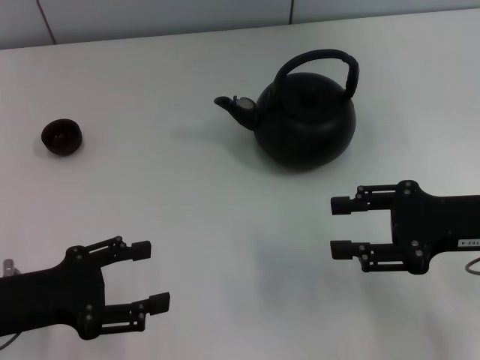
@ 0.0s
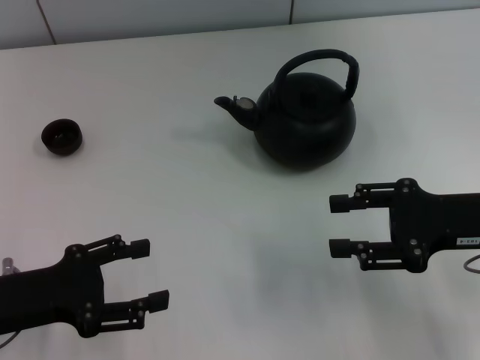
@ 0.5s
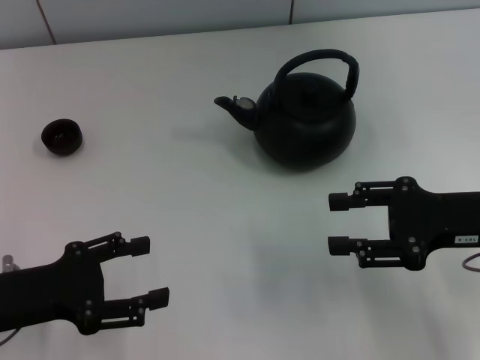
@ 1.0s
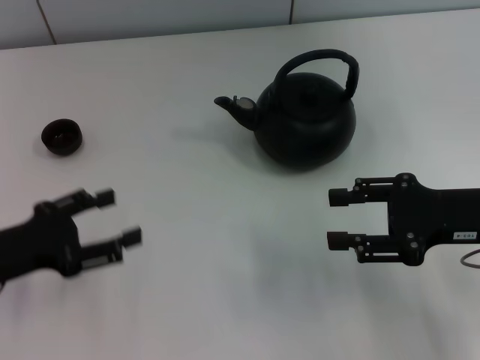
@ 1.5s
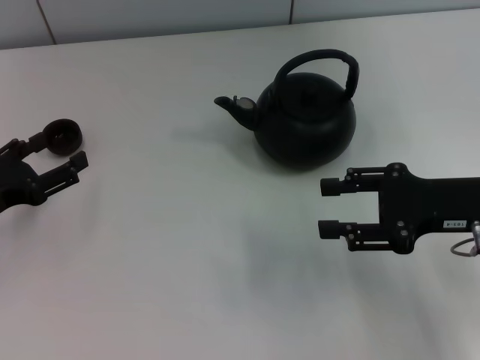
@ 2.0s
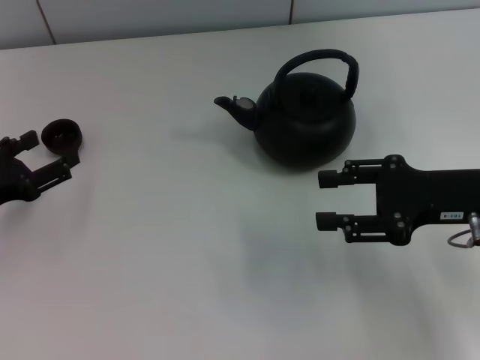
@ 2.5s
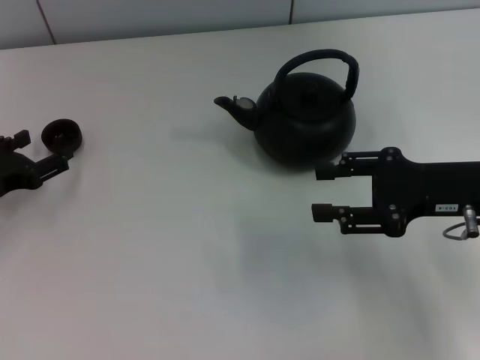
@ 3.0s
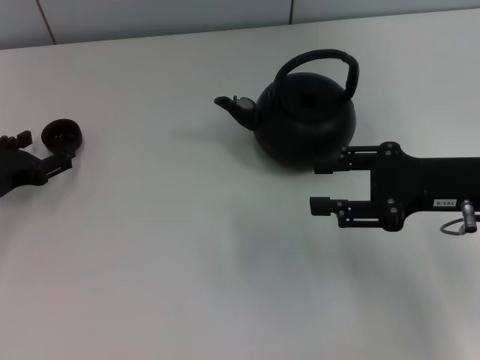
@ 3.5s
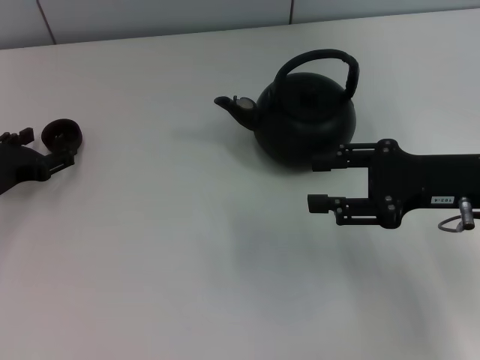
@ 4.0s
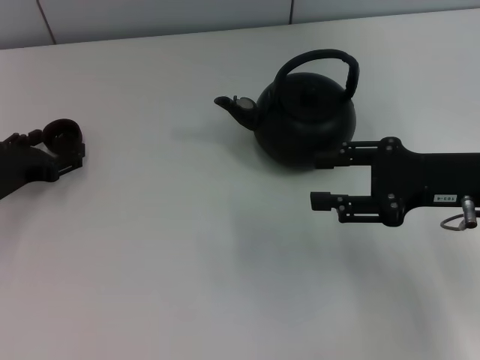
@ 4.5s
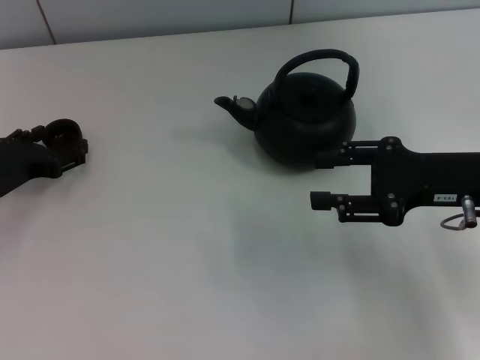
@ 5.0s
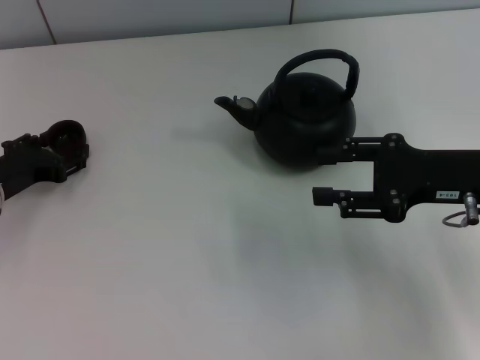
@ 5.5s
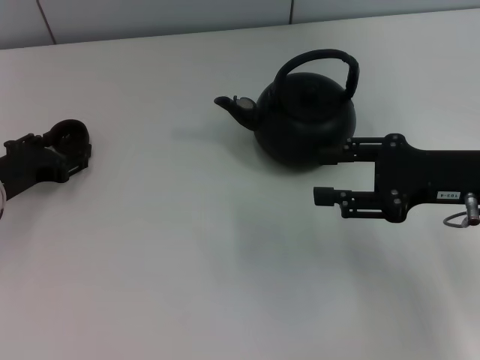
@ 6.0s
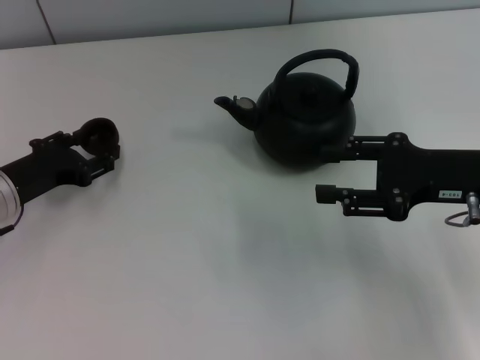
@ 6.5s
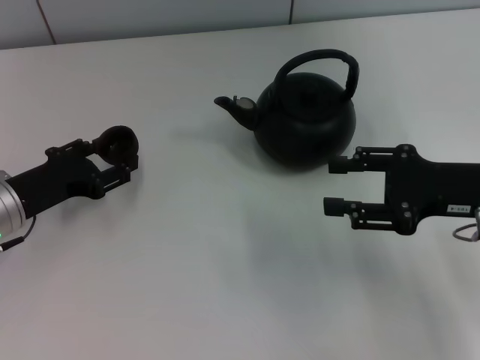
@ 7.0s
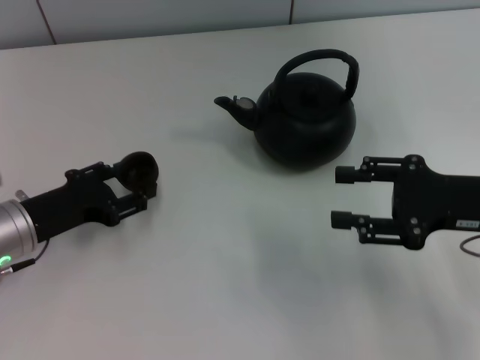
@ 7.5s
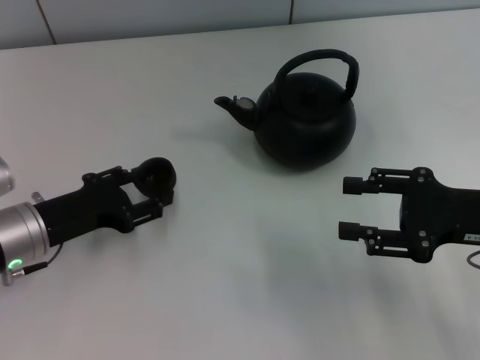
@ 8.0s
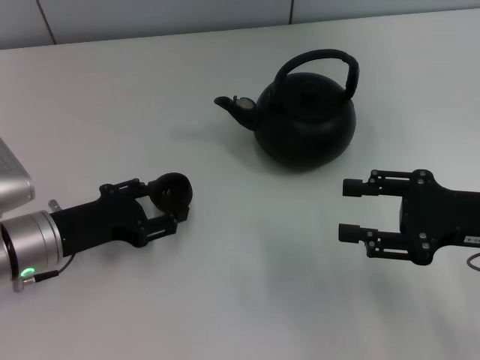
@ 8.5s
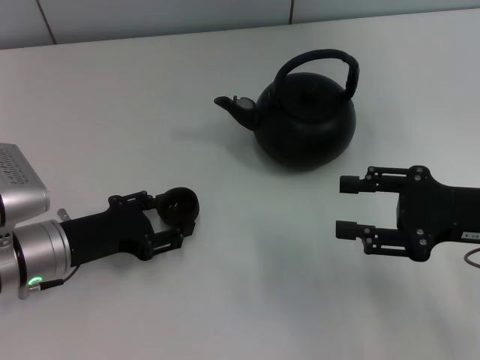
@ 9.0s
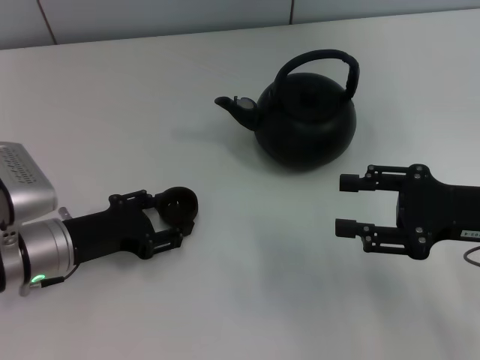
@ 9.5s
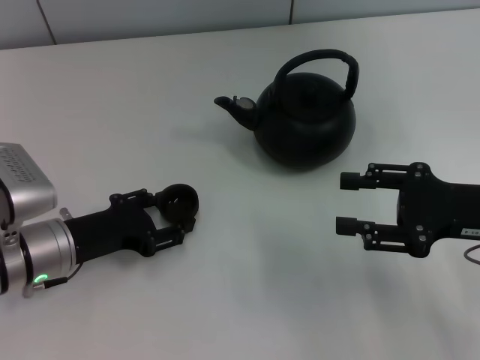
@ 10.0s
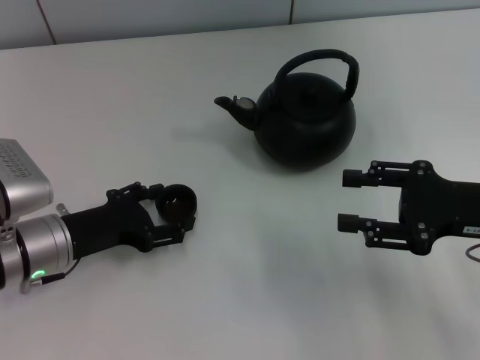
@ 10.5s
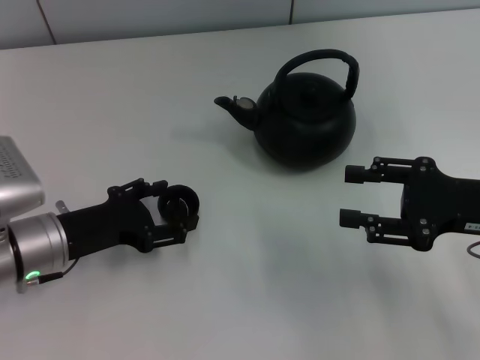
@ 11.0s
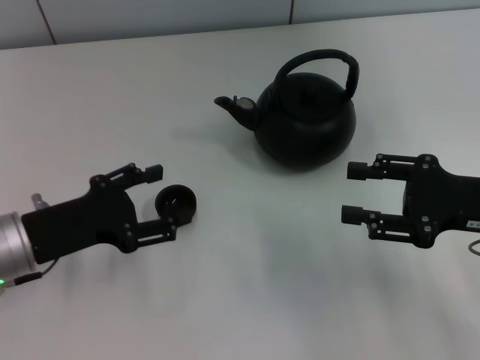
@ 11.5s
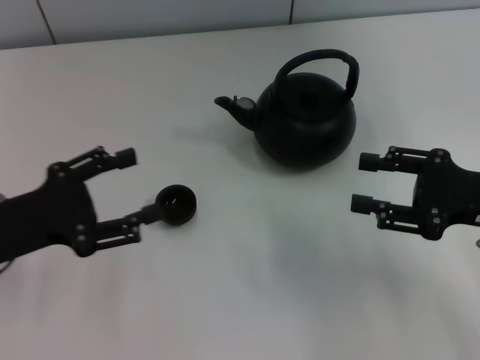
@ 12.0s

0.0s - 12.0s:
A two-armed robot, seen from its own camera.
Task of the whole recording: Grasp the handle of the teapot with one hand and pour tea into the teacup.
Step, 0.0s - 6.5s: Pick up the teacup with the left gripper.
Step, 7.0s - 11.5s: Place the teacup in the center of view with the left gripper.
0.0s - 2.0s: The left gripper goes some 5 cm forward.
2.0s - 4.0s: The left gripper travels forward by roughly 5 cm.
4.0s - 6.0s: The left gripper closes up.
6.0s - 8.0s: The left gripper ends up about 5 cm from where it was.
8.0s - 10.0s: The grippers stay close to where they were, moving slightly.
10.0s - 12.0s: The left gripper heads upward and to the left, covering approximately 10 cm, and opens.

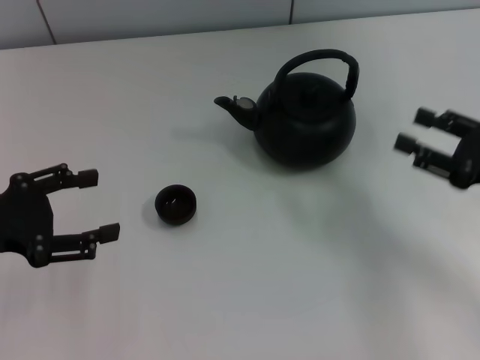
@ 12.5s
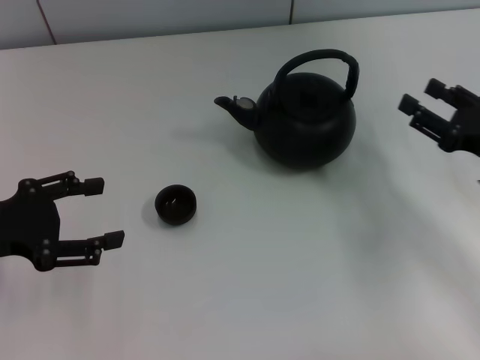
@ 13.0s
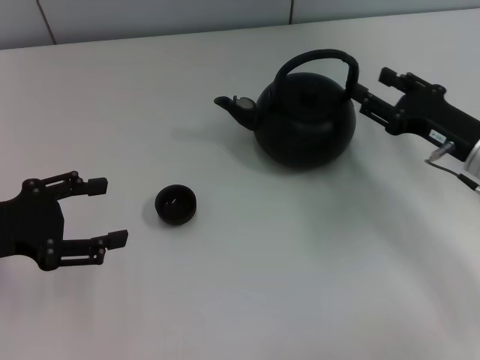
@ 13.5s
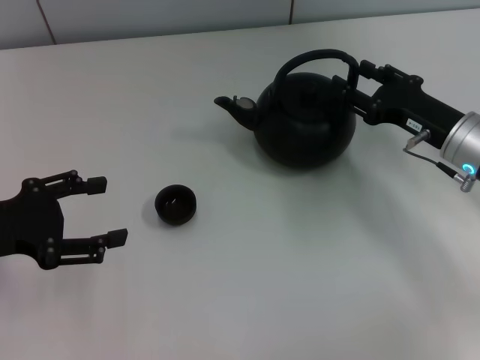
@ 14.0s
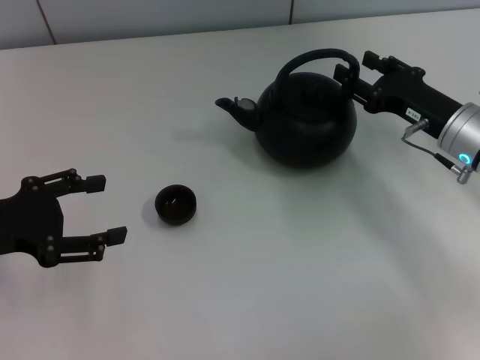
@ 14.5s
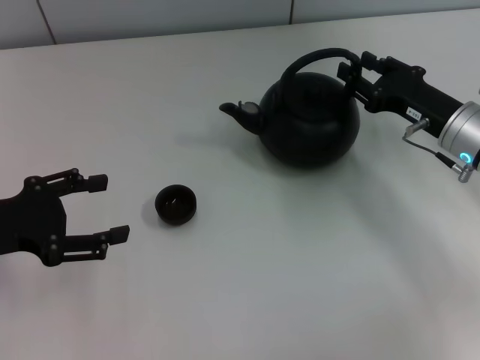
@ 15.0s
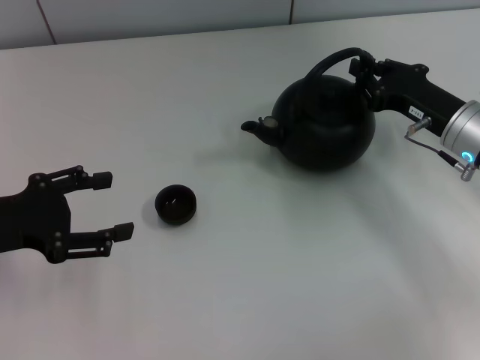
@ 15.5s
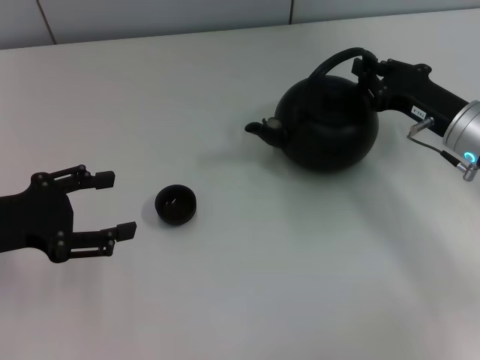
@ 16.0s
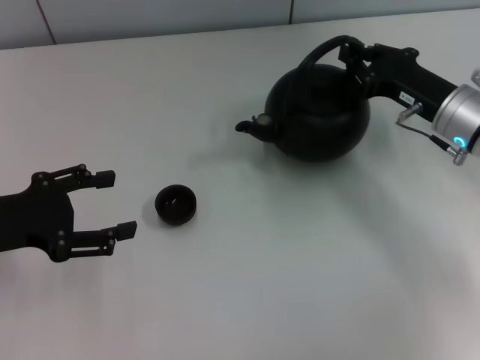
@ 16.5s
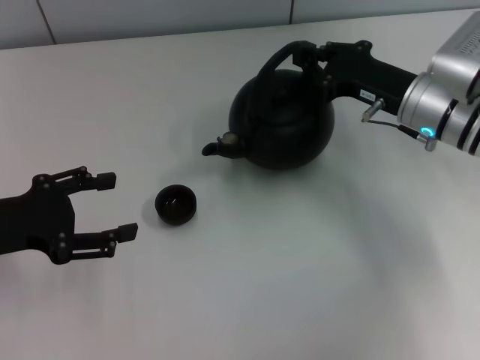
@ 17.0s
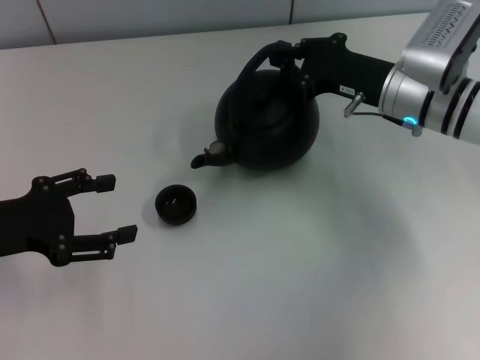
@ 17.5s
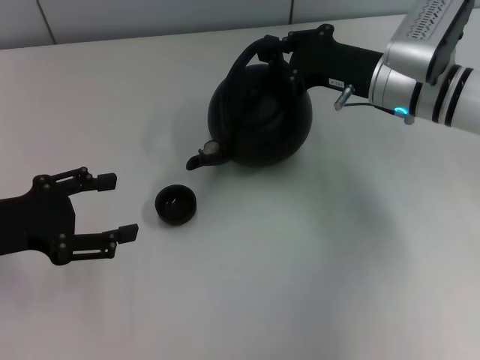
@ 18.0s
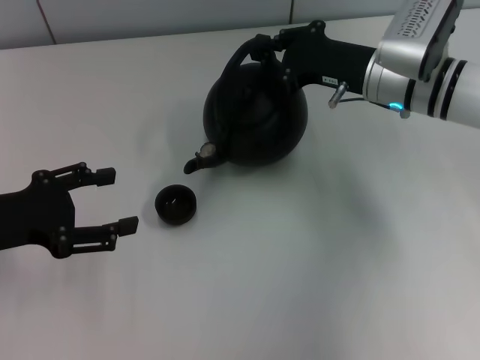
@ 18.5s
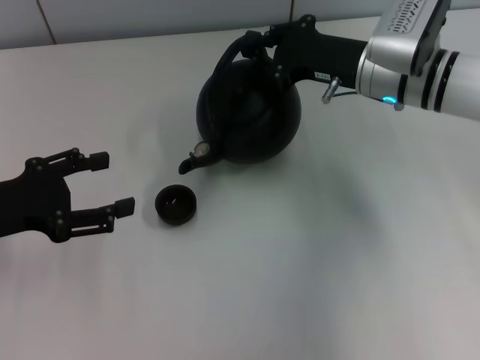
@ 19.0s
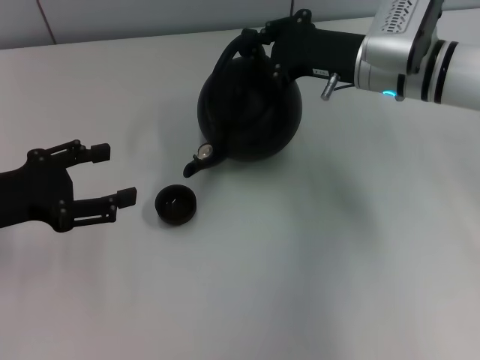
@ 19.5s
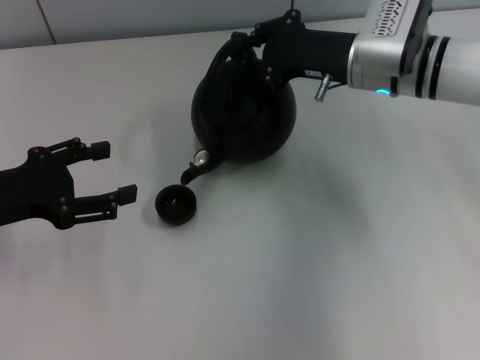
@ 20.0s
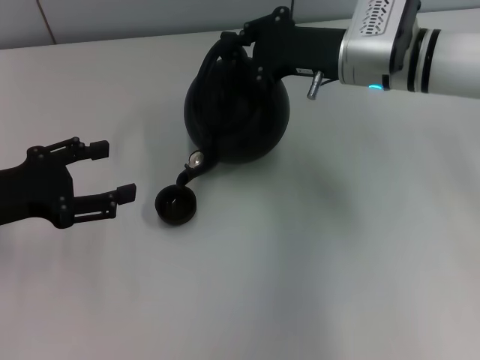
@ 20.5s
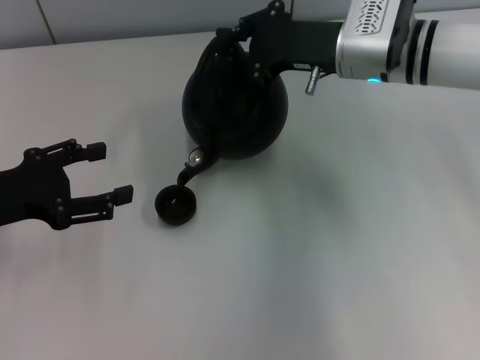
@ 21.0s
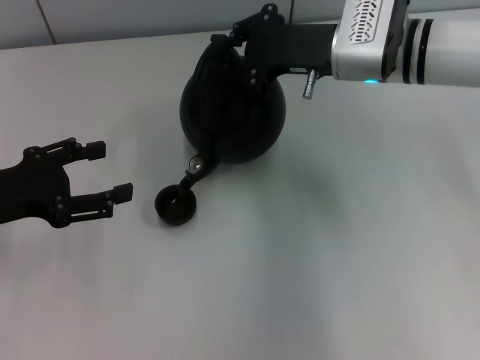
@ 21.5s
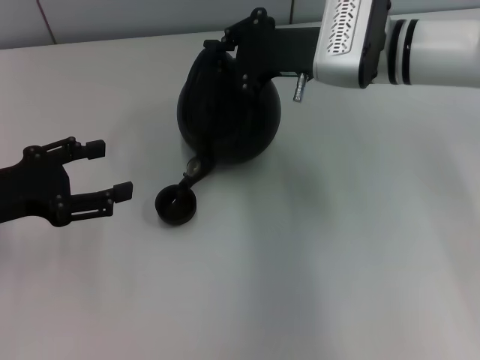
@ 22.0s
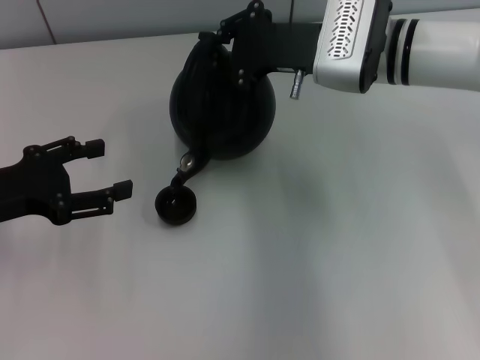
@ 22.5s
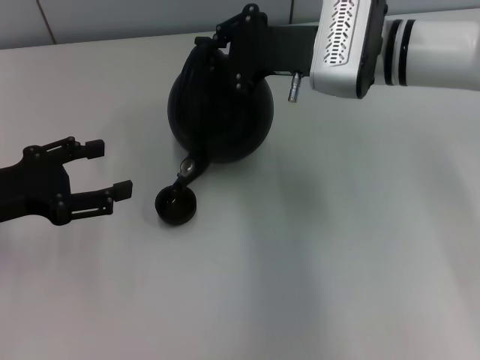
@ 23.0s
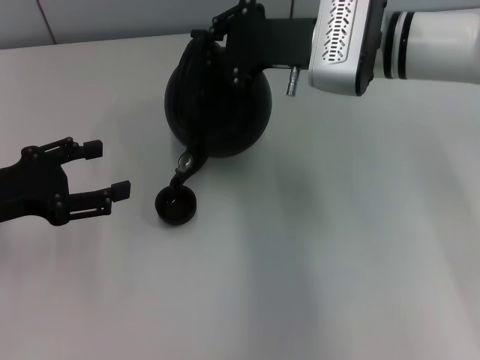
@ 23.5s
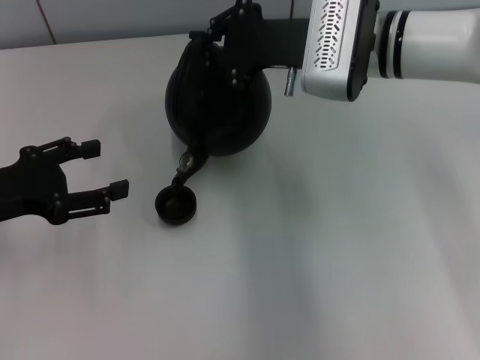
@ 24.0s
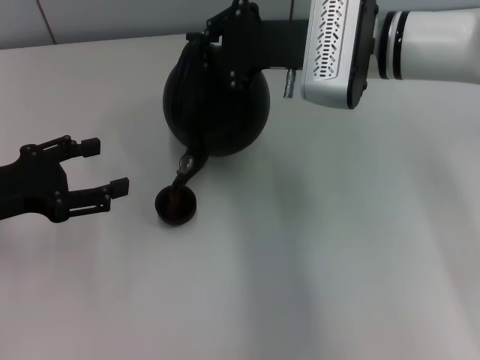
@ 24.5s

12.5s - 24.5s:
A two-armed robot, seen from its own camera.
Task of the whole recording: Grasp the handle of the teapot with one hand and pour tea into the teacup.
Step, 12.5s - 16.5s: Pick up the teapot with the right gripper.
12.5s - 14.5s: The right gripper travels forward and to the left by approximately 10 cm.
14.5s - 16.5s: The right gripper closes.
16.5s - 18.5s: The right gripper heads to the left, covering roughly 5 cm.
18.5s - 20.5s: The grippers stay close to where they were, moving slightly.
20.5s - 22.5s: The grippers move only a little.
22.5s - 24.5s: The grippers stay close to where they were, moving slightly.

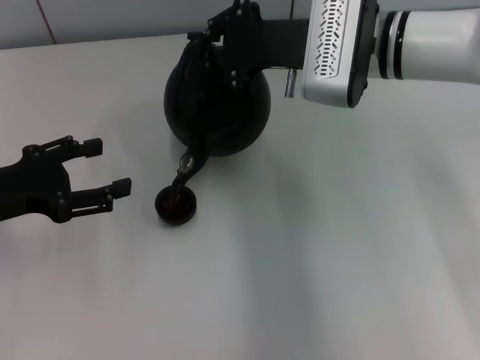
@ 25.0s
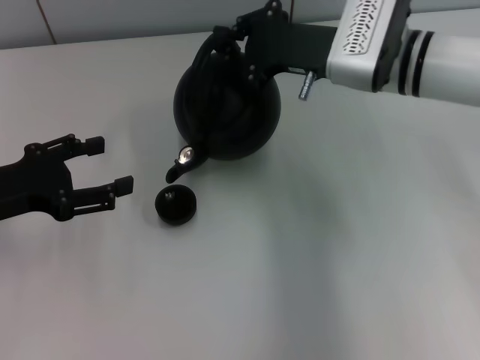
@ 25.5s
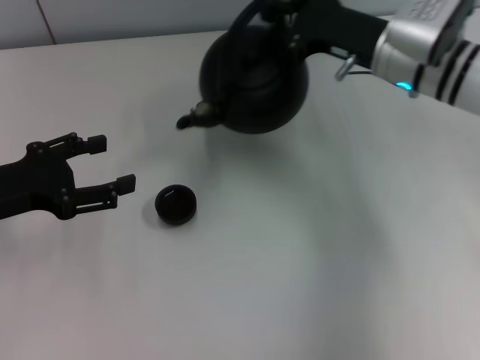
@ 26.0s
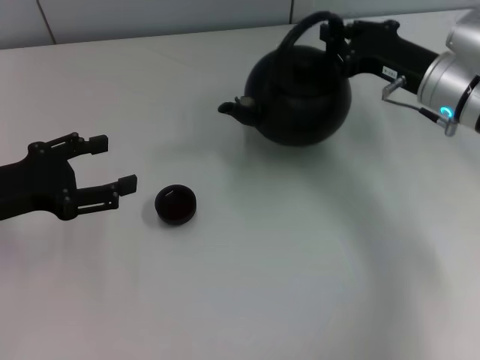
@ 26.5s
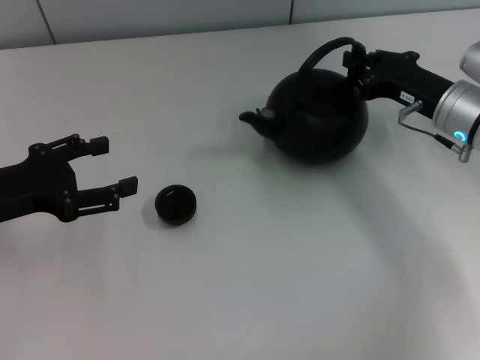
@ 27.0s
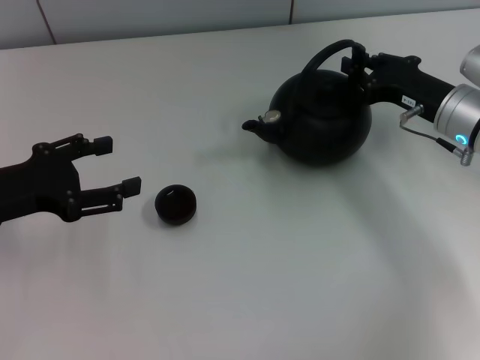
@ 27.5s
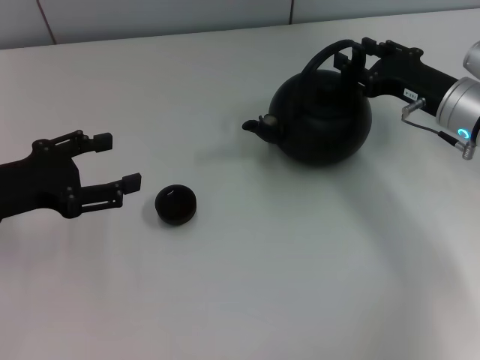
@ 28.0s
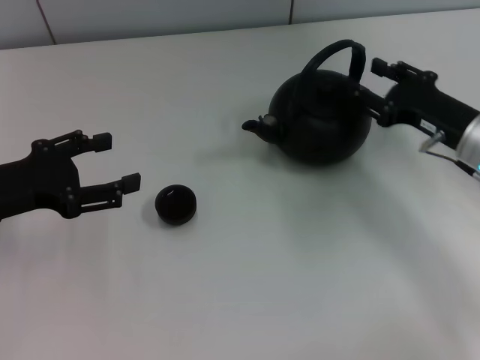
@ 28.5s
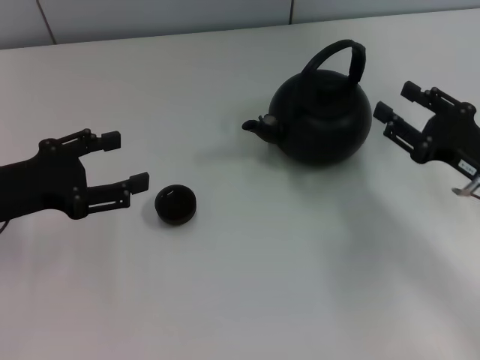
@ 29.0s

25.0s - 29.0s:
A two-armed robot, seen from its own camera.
Task of the whole recording: Grasp the handle of the teapot with one hand and pour tea into the teacup.
Step, 25.5s - 28.5s: Put down the teapot with the right gripper.
25.0s - 27.0s: The right gripper travels to the right and downward by approximately 15 cm.
27.0s - 29.0s: The right gripper is displaced backward by about 10 cm, and opens up.
